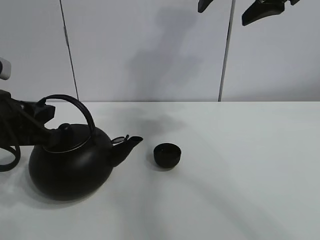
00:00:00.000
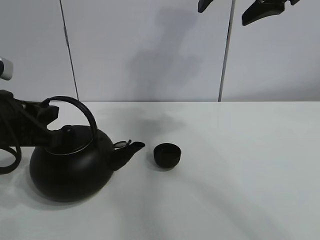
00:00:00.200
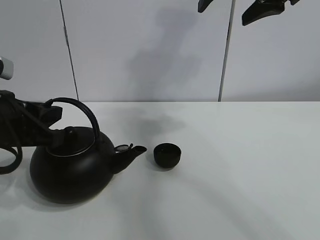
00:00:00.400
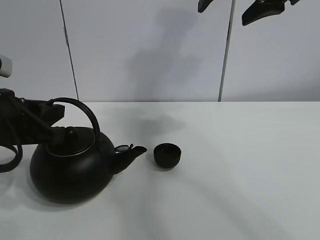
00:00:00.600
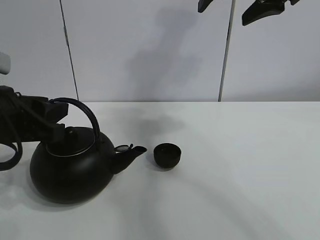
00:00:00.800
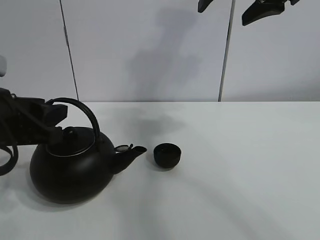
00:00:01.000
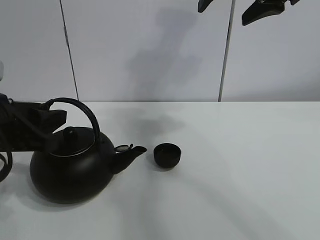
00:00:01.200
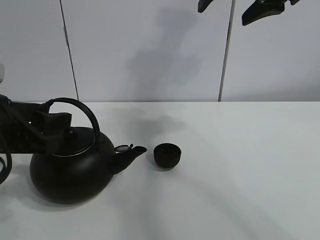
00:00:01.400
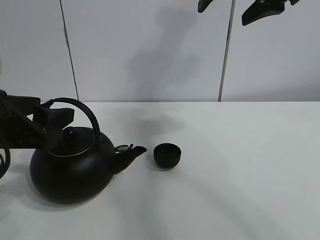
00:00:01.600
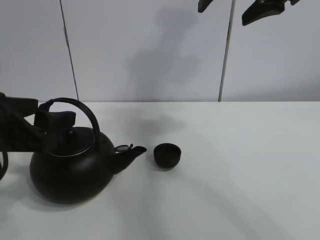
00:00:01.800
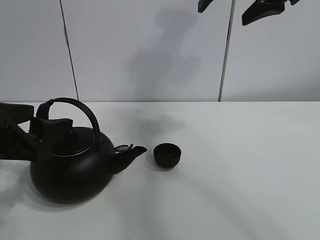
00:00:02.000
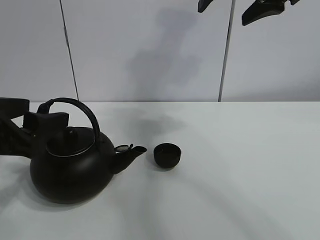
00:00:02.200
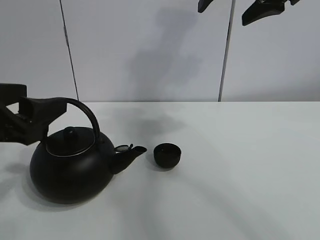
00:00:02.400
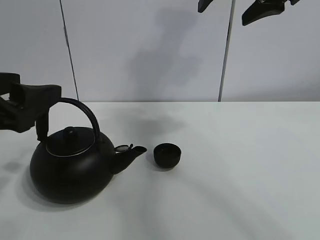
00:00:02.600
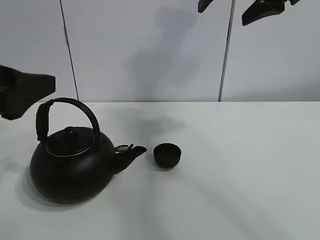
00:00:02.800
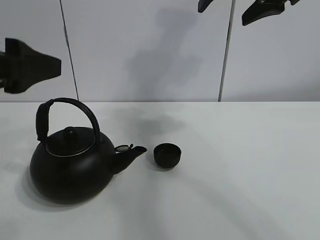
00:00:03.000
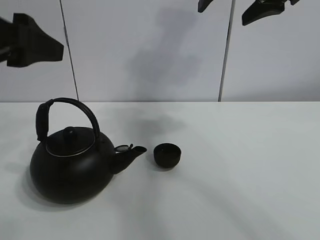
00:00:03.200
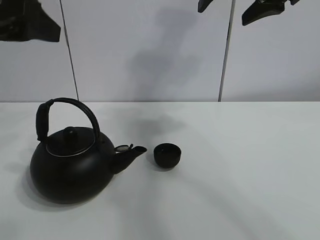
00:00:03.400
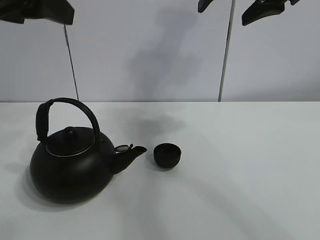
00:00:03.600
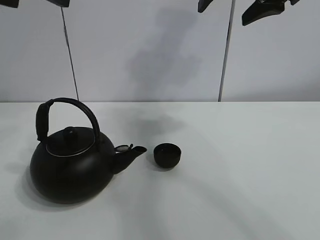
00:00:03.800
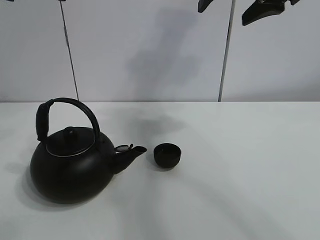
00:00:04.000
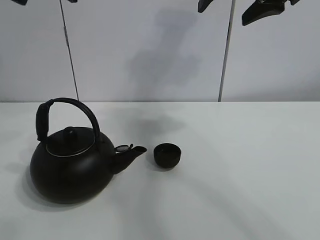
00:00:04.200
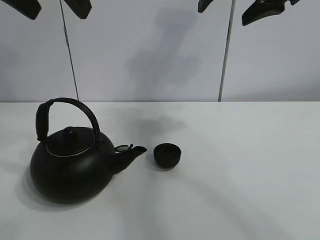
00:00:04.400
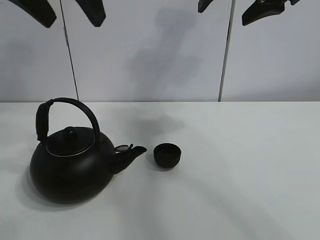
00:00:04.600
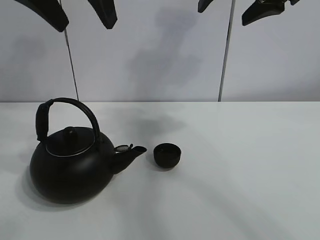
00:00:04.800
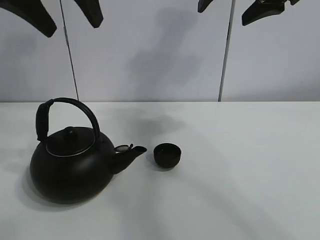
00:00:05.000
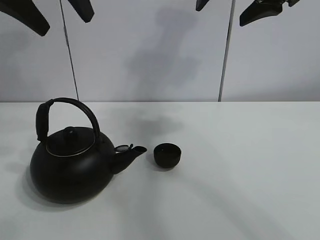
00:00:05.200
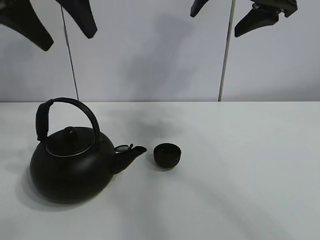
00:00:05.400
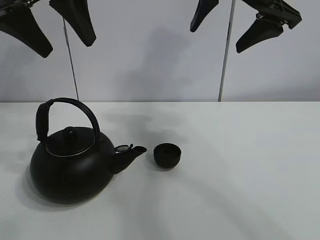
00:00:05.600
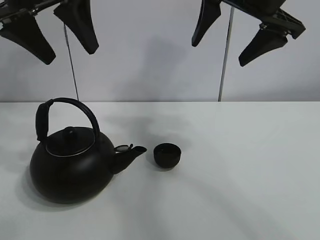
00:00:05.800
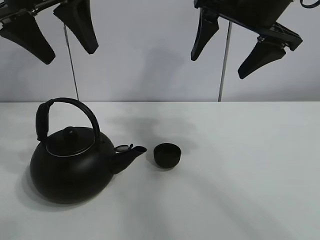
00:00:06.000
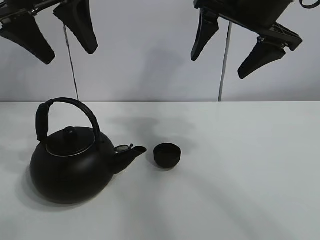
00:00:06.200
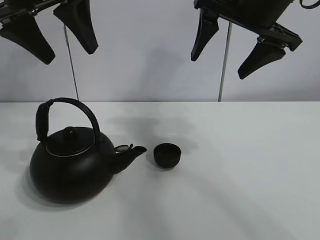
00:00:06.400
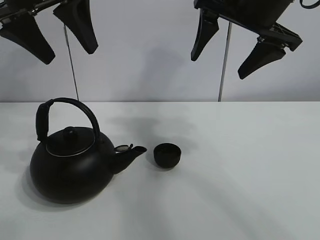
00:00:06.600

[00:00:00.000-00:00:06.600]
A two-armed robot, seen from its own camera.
Task of the whole recording: pour tea into the teacup.
00:00:00.000 to 00:00:01.600: The left gripper opens its fingers.
00:00:01.600 to 00:00:03.200: The left gripper shifts approximately 10 cm upward.
00:00:03.200 to 00:00:05.000: The left gripper shifts roughly 15 cm upward, forward and to the right.
